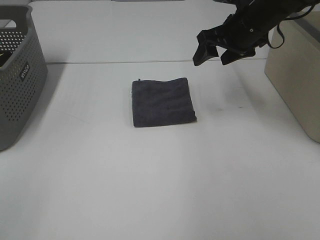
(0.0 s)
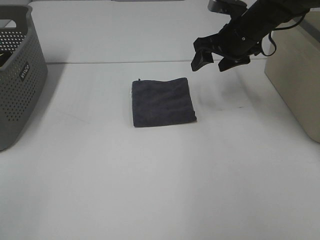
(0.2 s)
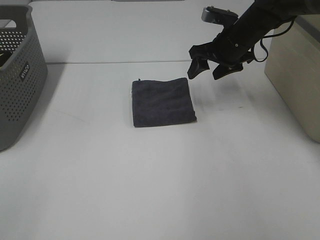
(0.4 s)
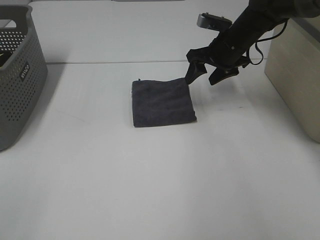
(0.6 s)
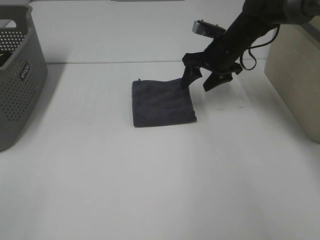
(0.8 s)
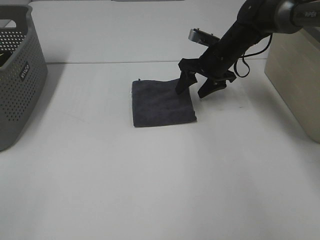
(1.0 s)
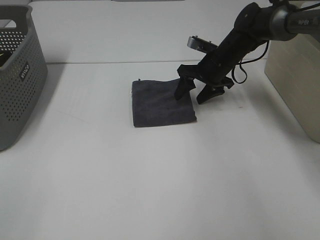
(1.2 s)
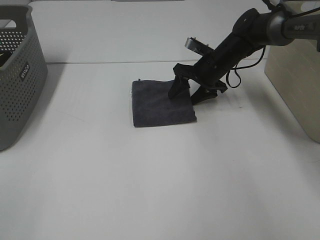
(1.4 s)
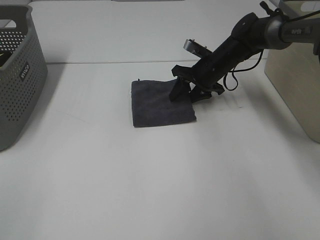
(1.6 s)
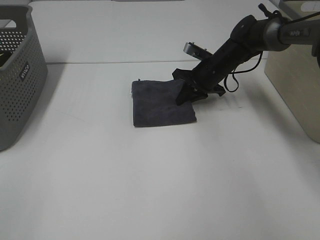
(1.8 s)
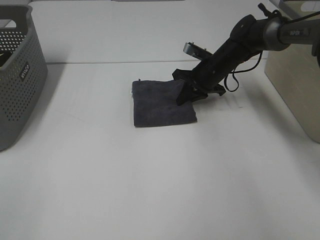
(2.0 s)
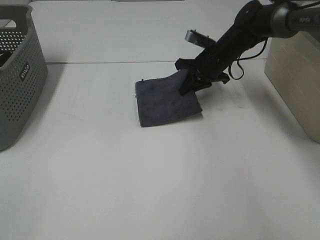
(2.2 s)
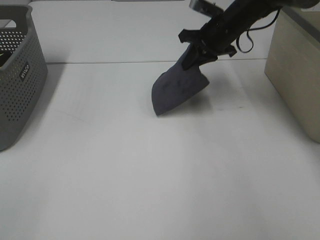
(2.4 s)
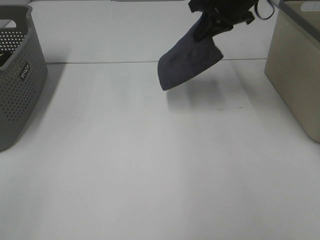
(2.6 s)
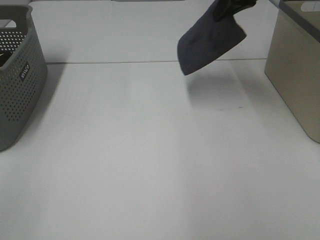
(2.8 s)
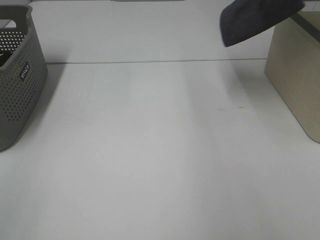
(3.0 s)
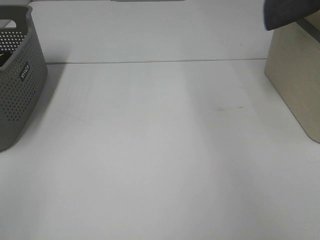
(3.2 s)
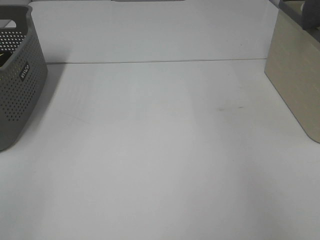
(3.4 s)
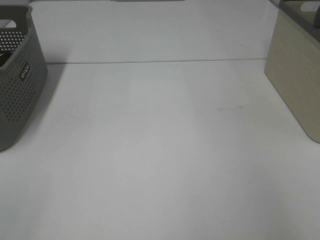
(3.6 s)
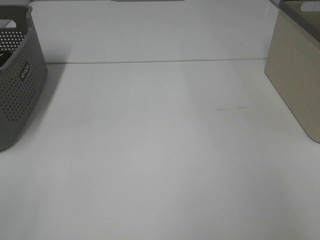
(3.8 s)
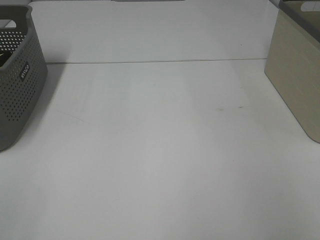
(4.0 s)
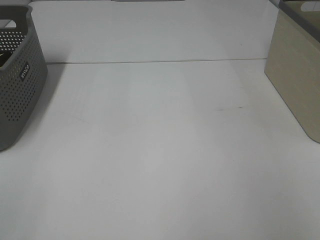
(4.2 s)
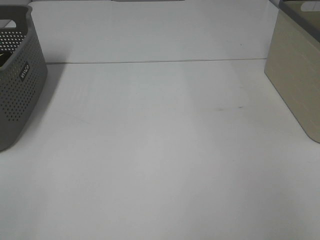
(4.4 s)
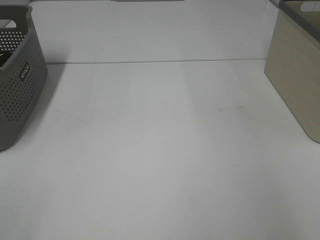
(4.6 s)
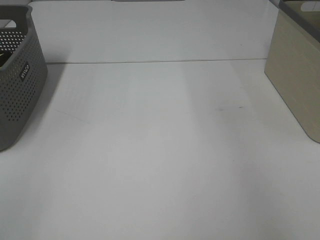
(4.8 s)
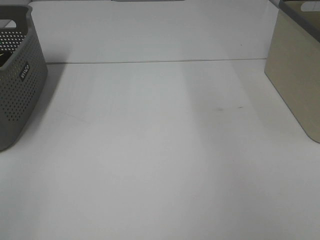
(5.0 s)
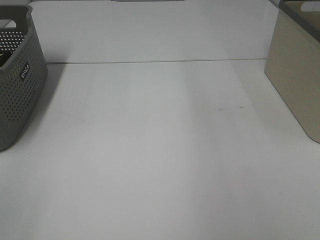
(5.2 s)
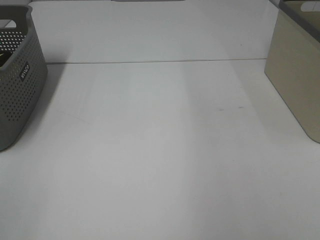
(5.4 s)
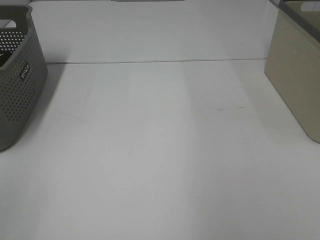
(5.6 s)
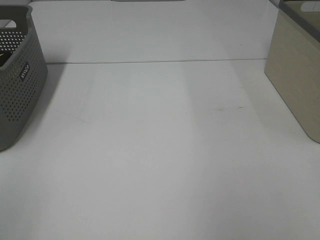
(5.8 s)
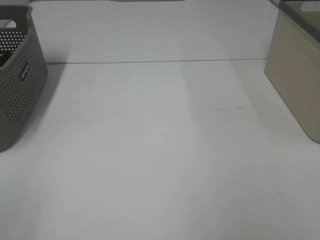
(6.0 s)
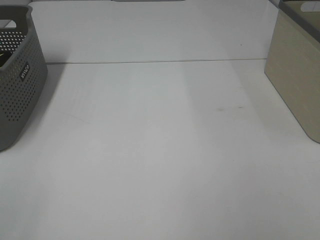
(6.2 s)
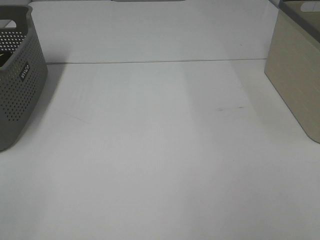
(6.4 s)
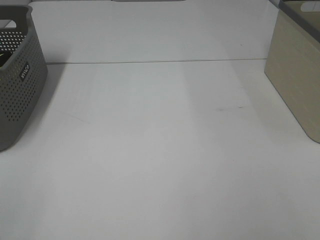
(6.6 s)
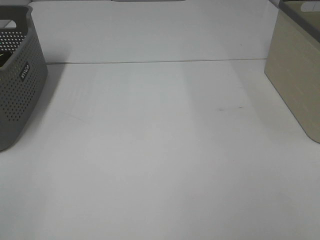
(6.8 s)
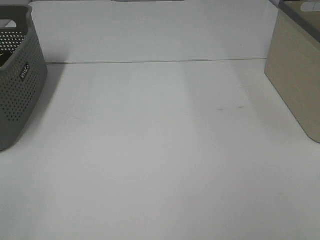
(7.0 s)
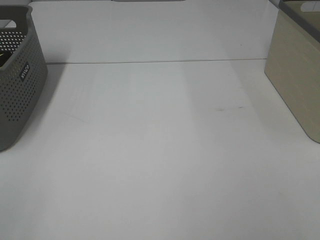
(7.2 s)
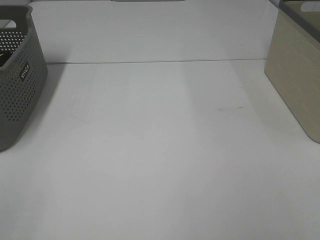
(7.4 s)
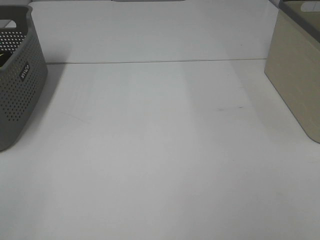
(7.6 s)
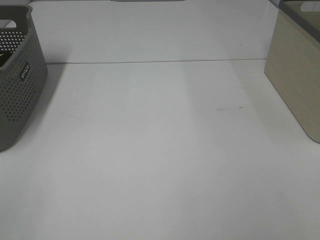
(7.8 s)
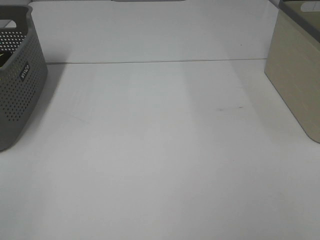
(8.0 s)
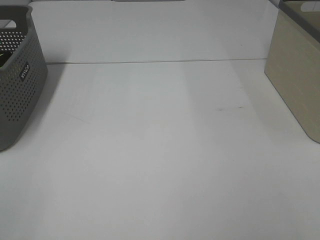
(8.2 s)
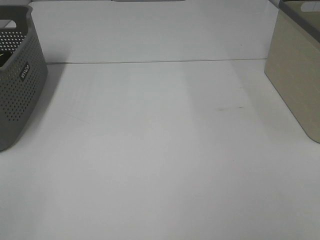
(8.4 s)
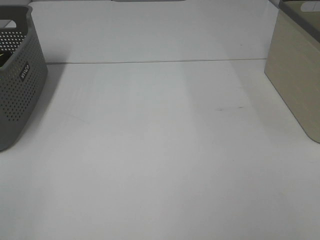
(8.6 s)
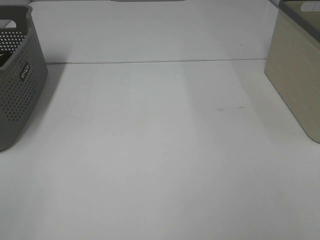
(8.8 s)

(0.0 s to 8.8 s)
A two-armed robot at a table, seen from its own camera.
Step, 2.0 s - 4.2 s: Right hand: place the grey towel in right basket.
0.0 s - 1.4 s: The right gripper moves downward and forward, approximately 15 cm.
1.4 s - 3.0 s: The right gripper is displaced upward and to the right by approximately 30 cm, and closes.
3.0 s - 4.4 s: The right gripper goes about 15 cm to the right, and opens.
7.4 s - 8.8 s: Both grippers stay about where they are.

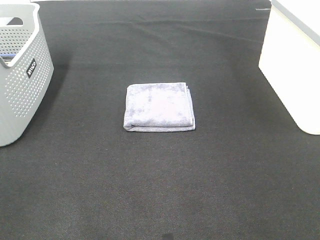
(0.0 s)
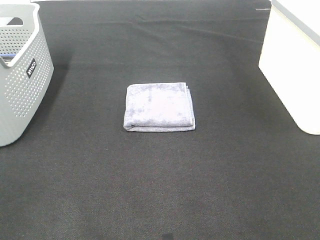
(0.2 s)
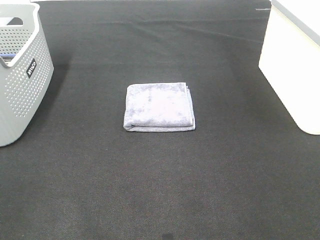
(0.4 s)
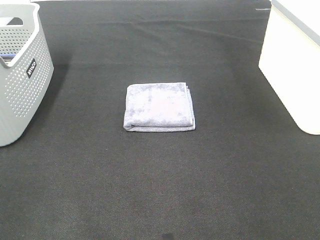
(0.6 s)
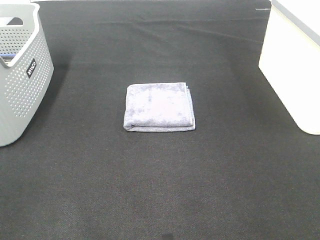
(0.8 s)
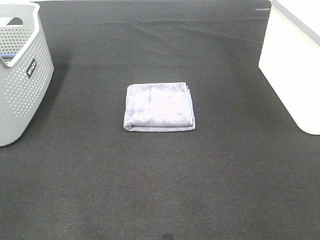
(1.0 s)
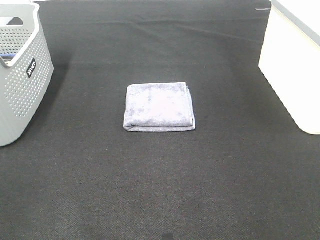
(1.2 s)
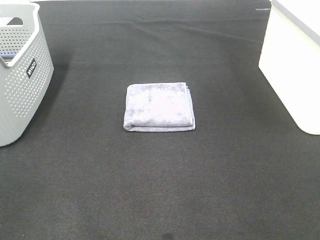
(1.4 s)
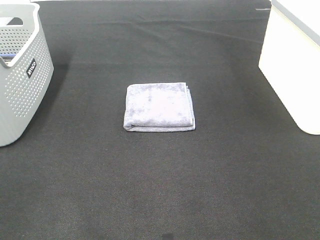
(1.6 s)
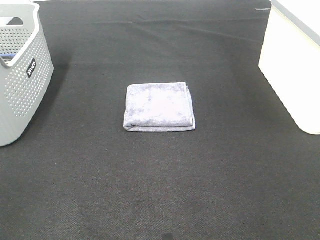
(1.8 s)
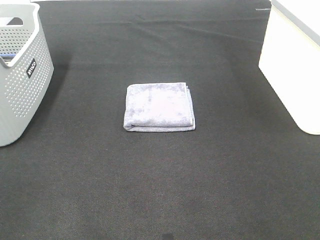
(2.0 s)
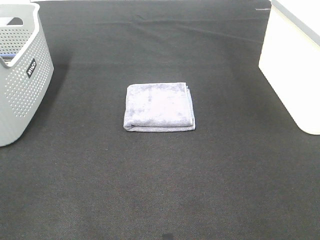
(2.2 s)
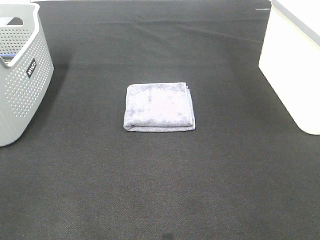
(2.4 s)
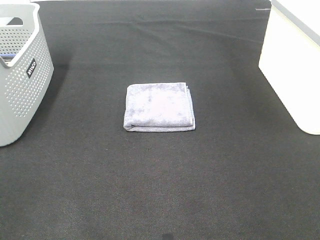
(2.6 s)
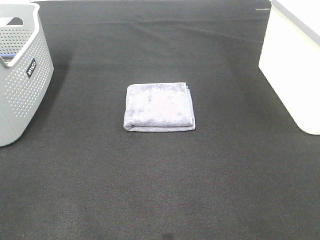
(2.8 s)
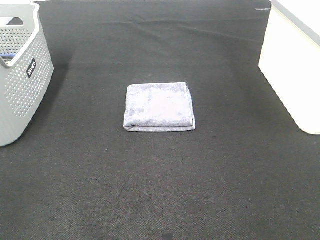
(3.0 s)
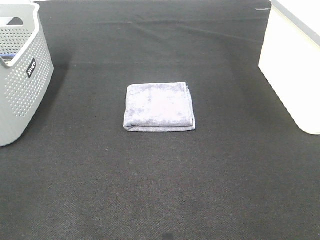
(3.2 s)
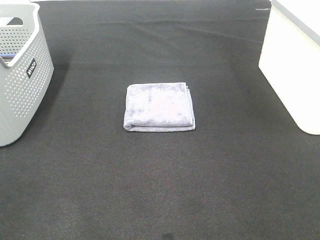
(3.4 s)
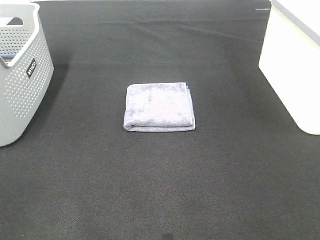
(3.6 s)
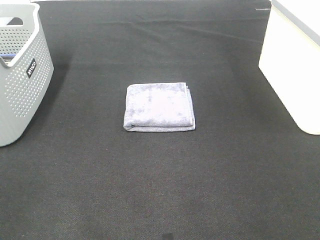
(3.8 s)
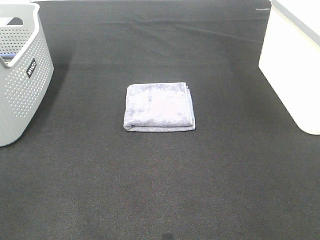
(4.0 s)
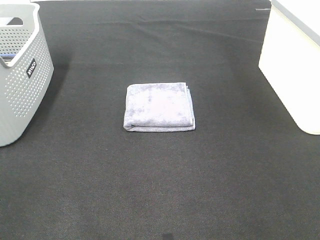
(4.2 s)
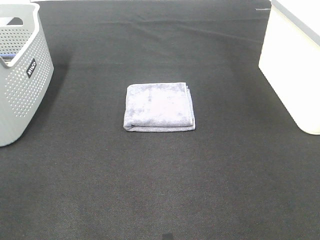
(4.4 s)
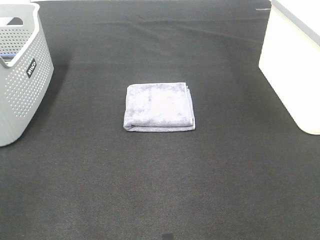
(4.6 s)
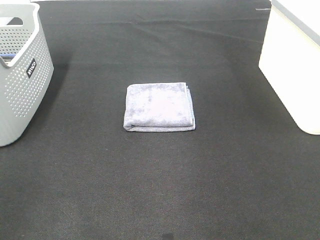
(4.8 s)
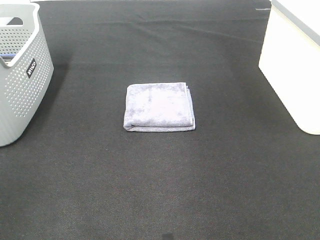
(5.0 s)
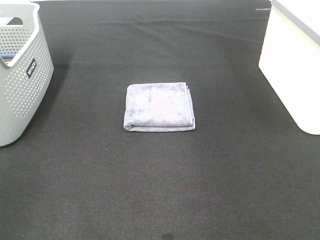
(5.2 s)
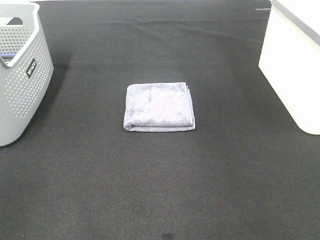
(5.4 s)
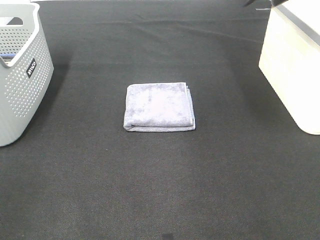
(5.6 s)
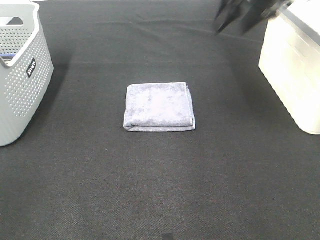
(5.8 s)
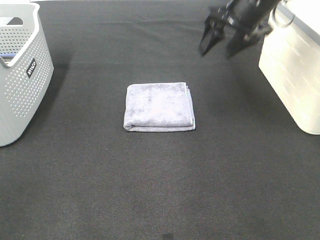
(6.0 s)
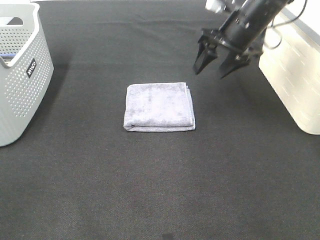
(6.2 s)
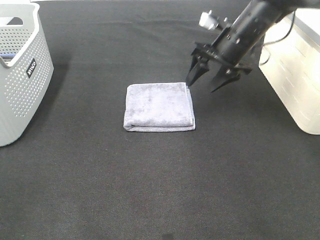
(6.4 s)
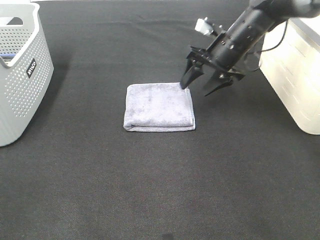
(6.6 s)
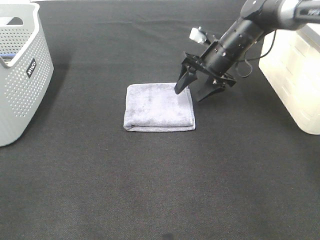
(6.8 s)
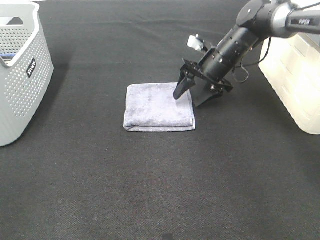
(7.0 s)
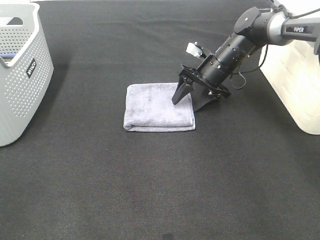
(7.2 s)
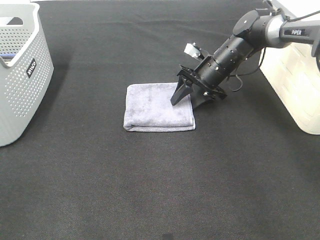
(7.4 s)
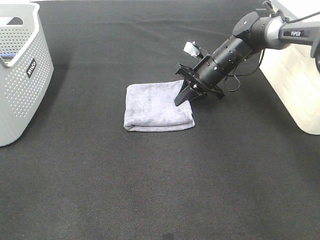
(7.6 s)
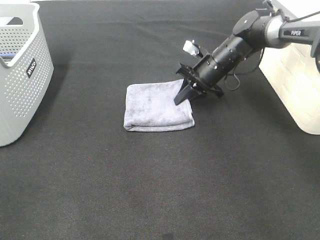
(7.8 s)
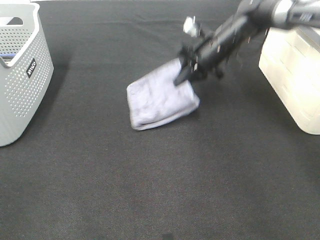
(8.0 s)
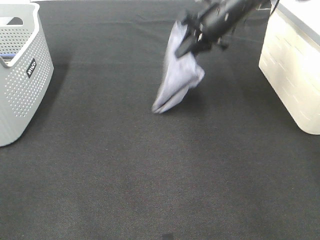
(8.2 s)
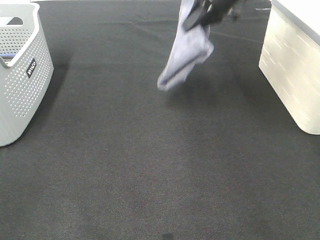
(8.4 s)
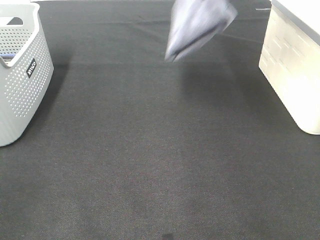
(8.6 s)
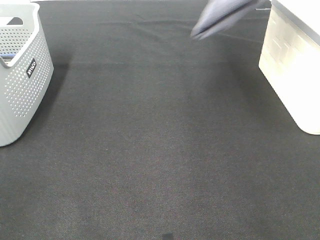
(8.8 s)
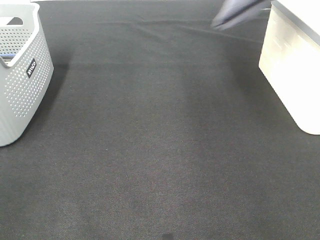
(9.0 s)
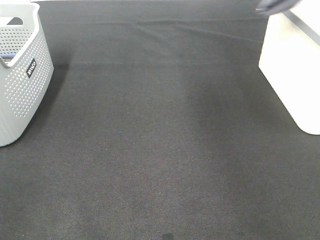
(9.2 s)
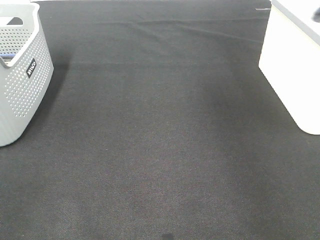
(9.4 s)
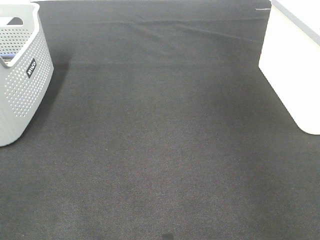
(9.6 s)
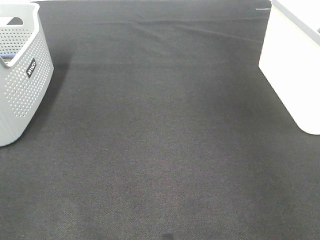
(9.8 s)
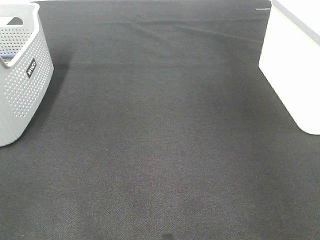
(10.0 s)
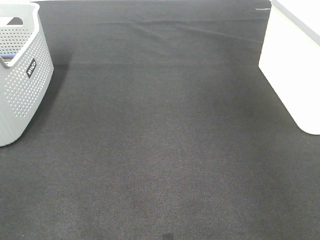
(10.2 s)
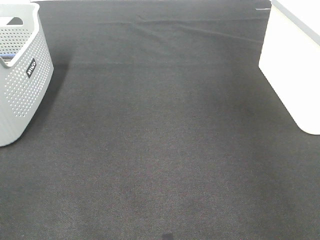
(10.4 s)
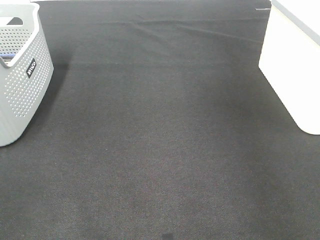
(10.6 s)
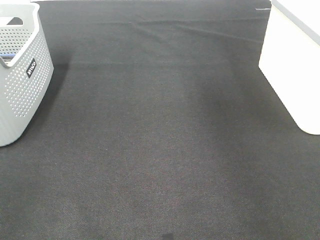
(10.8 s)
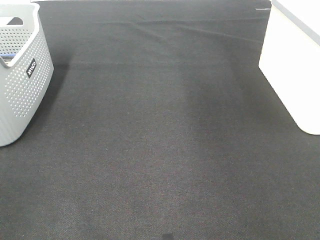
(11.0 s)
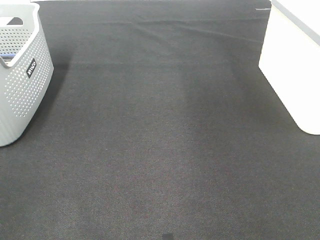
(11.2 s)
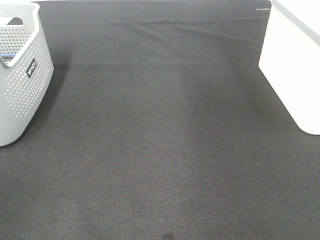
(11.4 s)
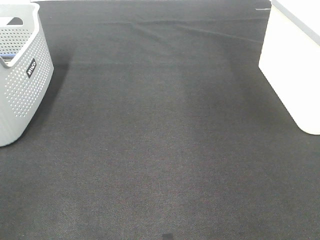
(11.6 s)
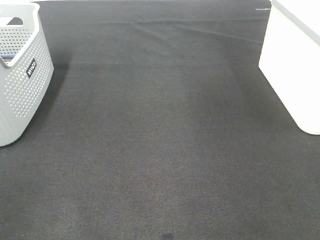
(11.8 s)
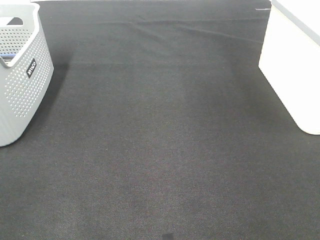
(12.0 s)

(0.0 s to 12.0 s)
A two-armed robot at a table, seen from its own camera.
Step, 0.0 s - 7.6 s: Right hand: grab the folded grey towel.
Step, 7.8 s - 10.2 s: Right hand: place the grey towel in right basket.
0.0 s - 3.0 s: Both grippers stay about where they are.
4.4 s - 6.0 s: The right gripper heads forward and to the left, covering some 35 cm.
6.0 s - 7.6 s: The right gripper goes roughly 15 cm downward, and closes its fingers.
7.6 s - 9.0 s: The right gripper moves upward, approximately 35 cm.
9.0 s - 10.4 s: The right gripper moves to the right and downward, some 15 cm, and opens up.
